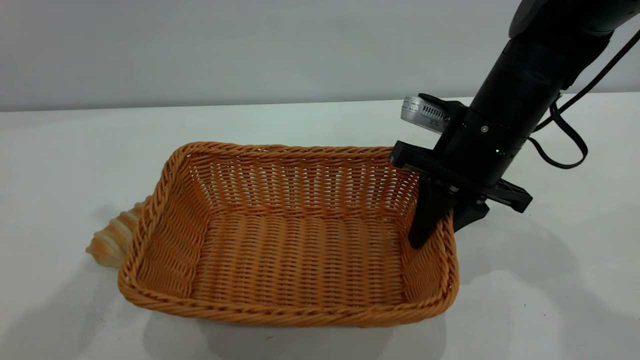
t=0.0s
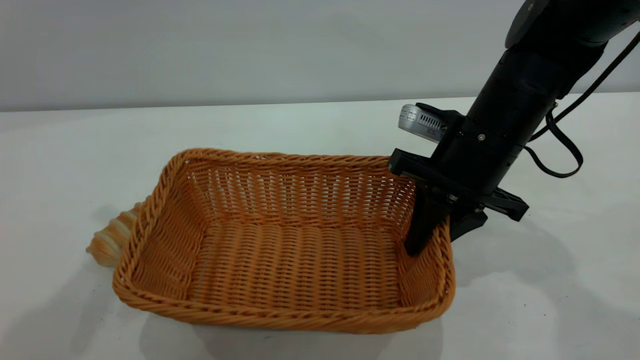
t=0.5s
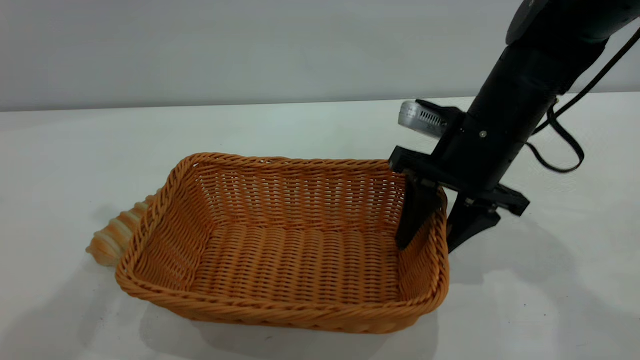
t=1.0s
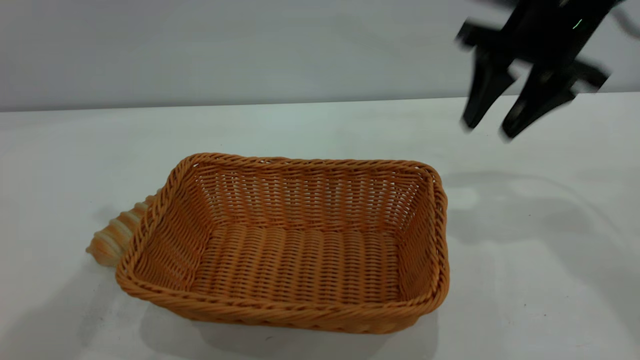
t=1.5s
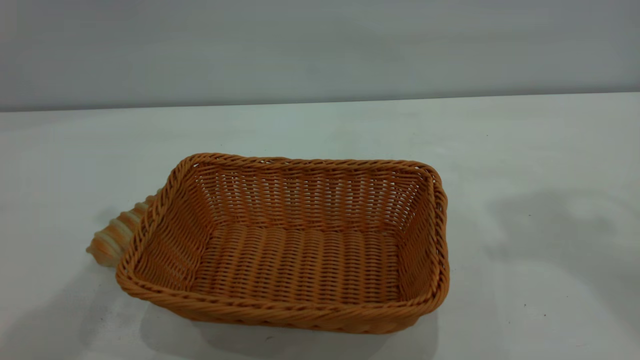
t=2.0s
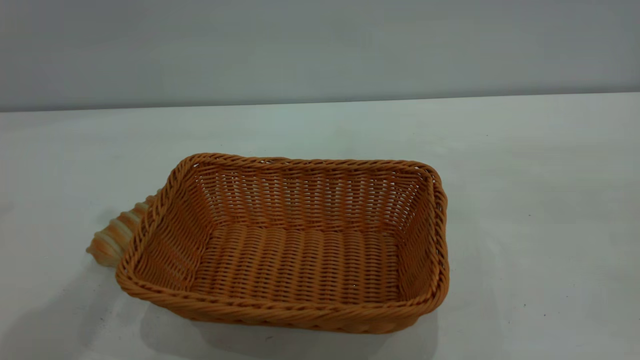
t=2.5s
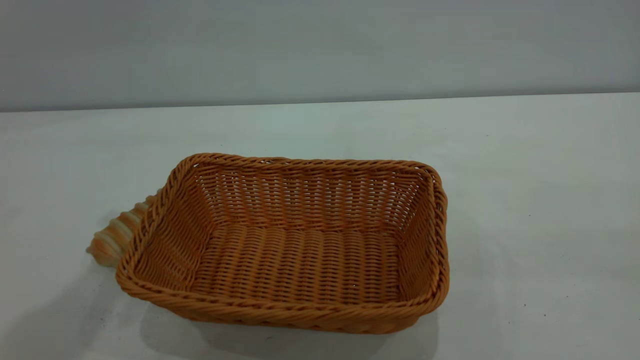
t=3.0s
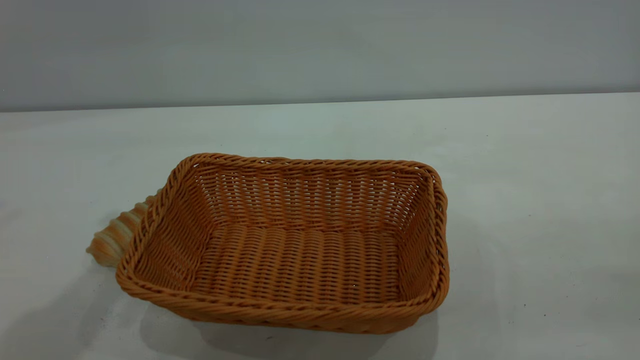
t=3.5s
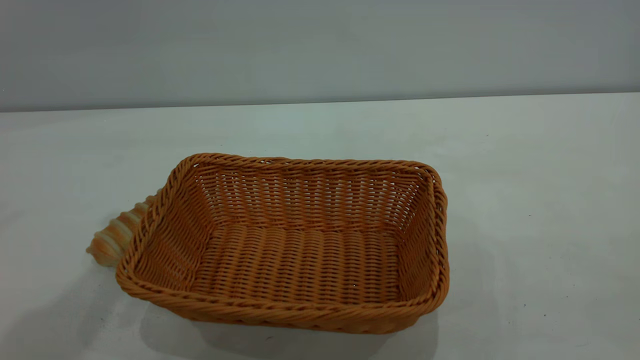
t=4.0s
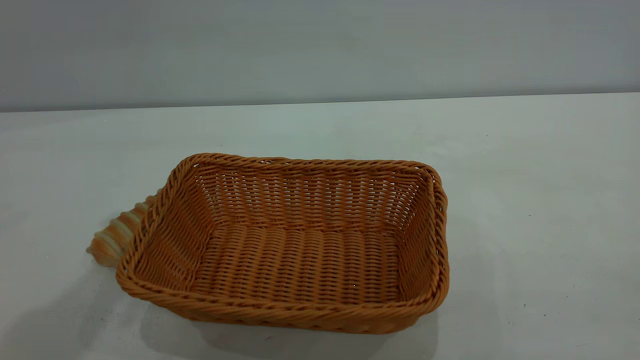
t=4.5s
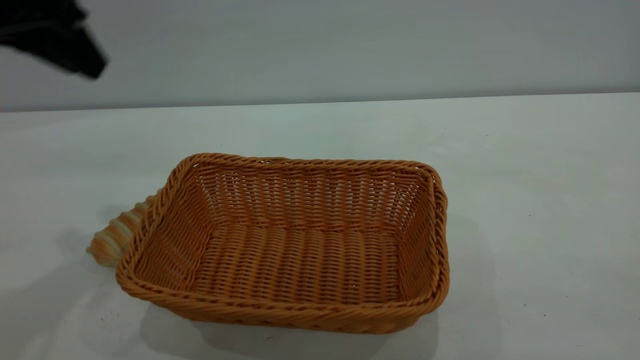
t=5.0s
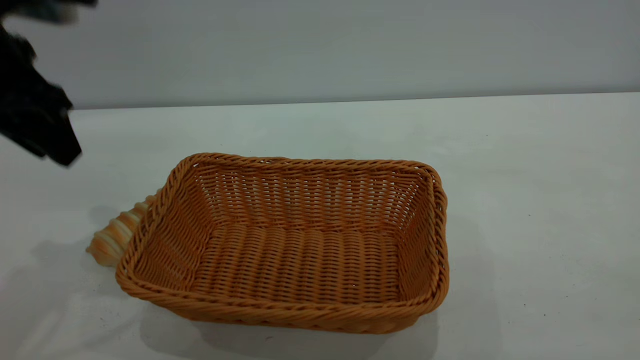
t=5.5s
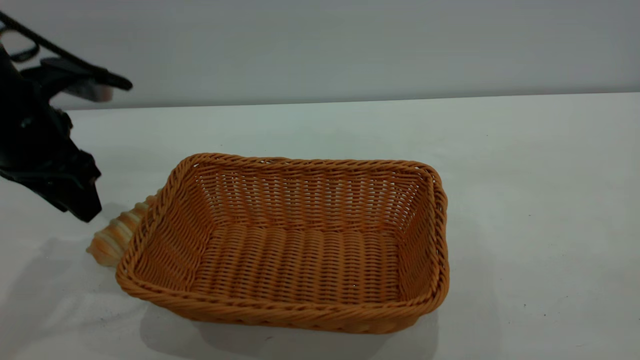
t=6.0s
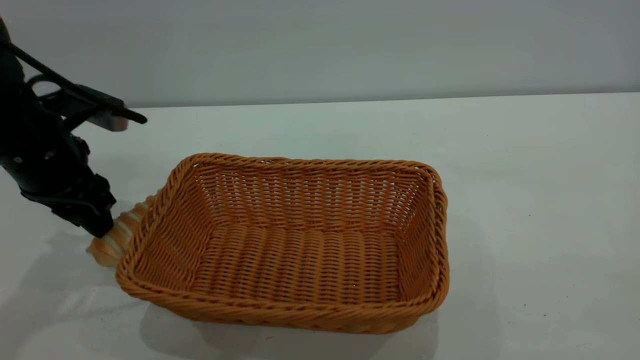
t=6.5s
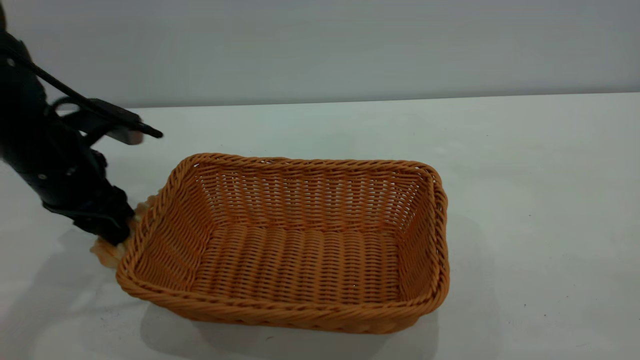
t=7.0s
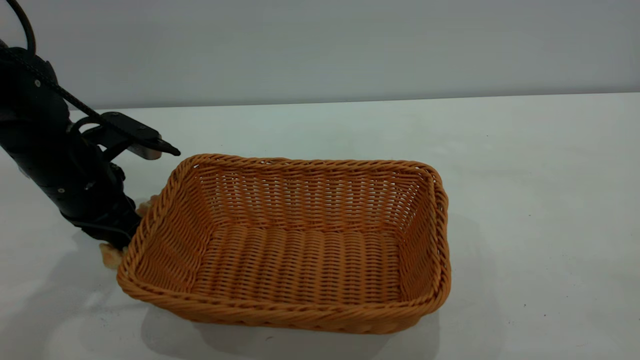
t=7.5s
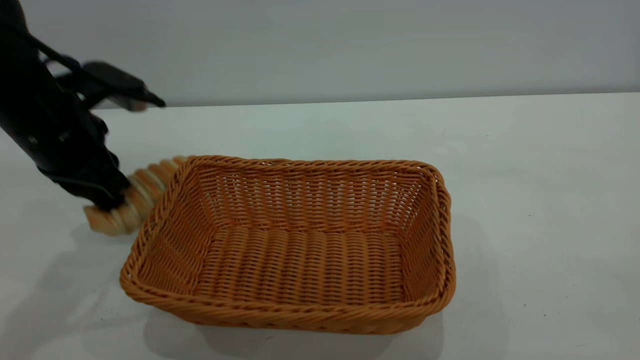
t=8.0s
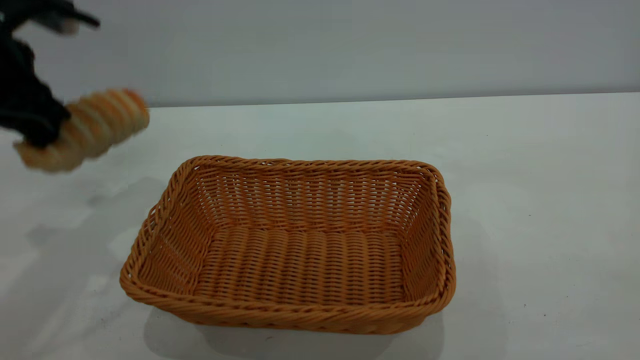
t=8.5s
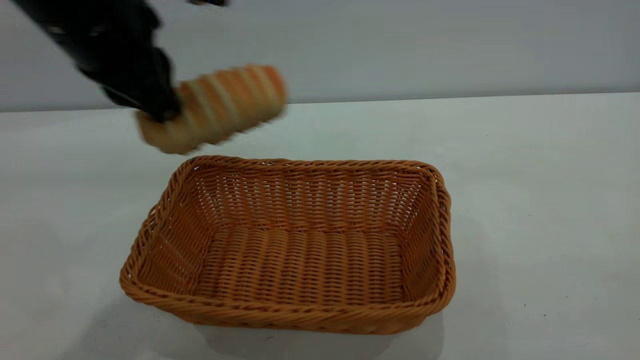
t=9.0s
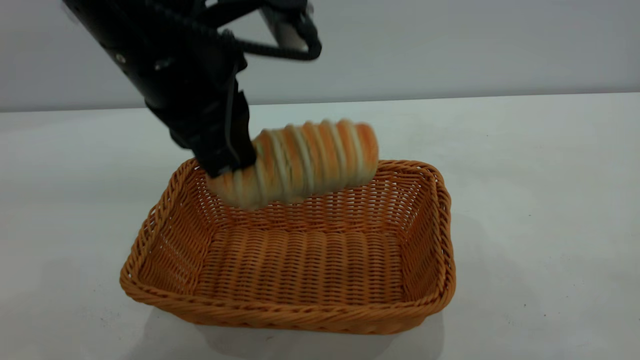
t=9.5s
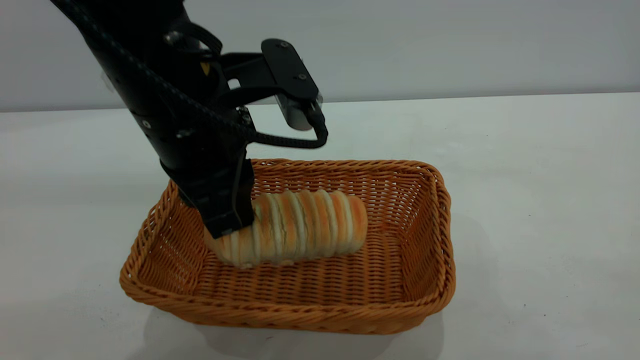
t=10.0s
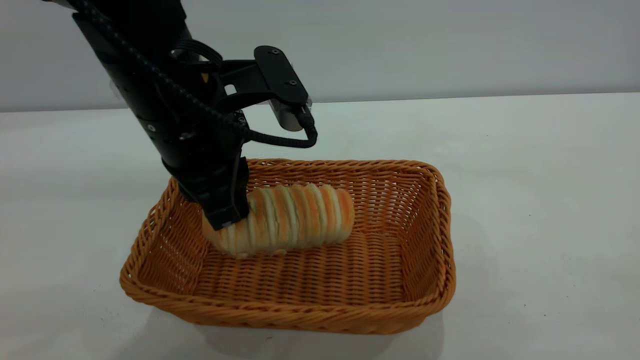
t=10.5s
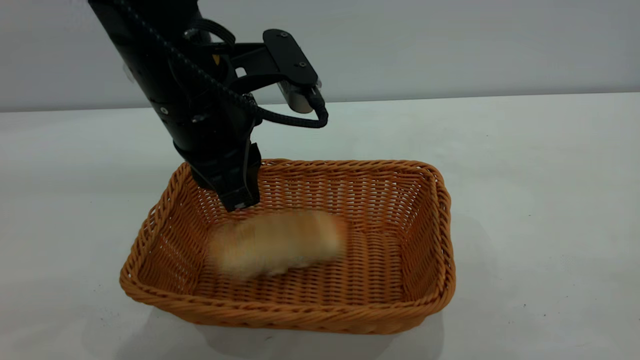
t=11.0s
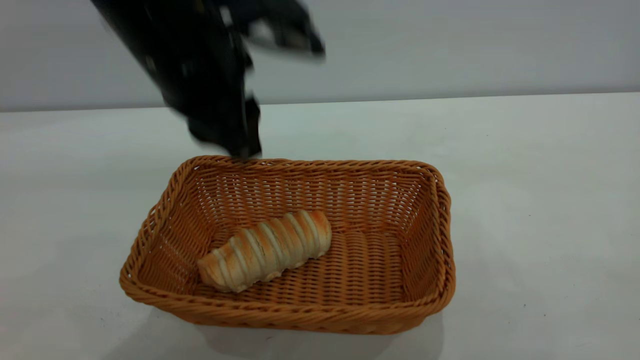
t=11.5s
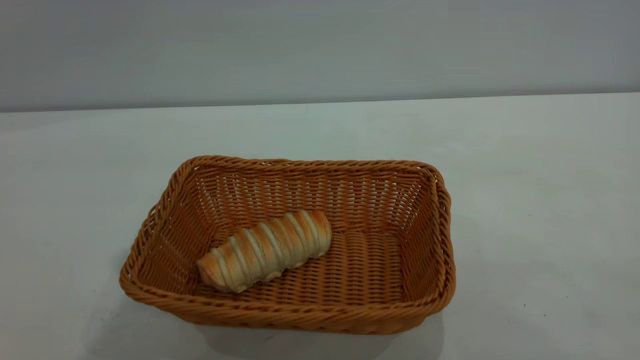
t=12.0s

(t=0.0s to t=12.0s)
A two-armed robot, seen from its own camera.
Task of the whole recording: One hand grasps the yellow basket and places it in the middle of the table, while the other hand picks up the long bread and puts it into the yellow basket.
Step, t=8.5s - t=11.5s: place the bread into the basket.
t=0.0s - t=2.0s: The right gripper shifts approximately 30 cm upward, and opens.
t=4.0s - t=6.0s: The left gripper moves downward, about 20 cm.
t=6.0s - t=8.0s: The left gripper closes its fingers.
t=8.0s - t=10.0s: The left gripper is displaced to the right and backward by about 20 cm.
t=10.0s - t=12.0s: The left gripper heads upward, covering approximately 20 cm, and opens.

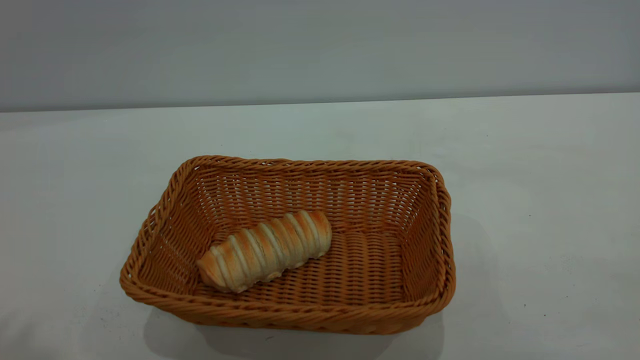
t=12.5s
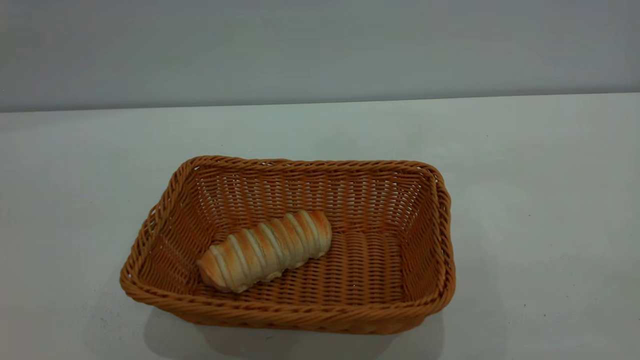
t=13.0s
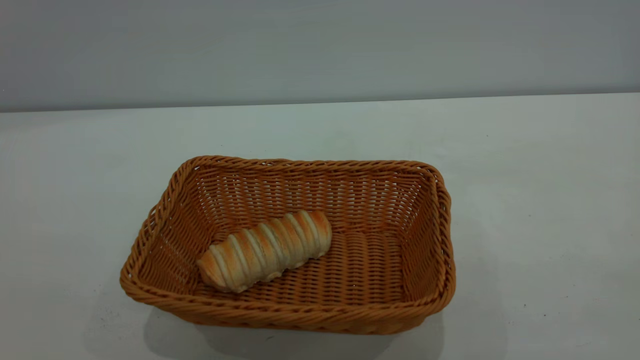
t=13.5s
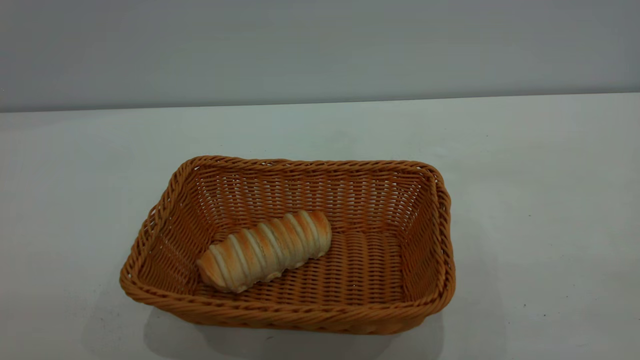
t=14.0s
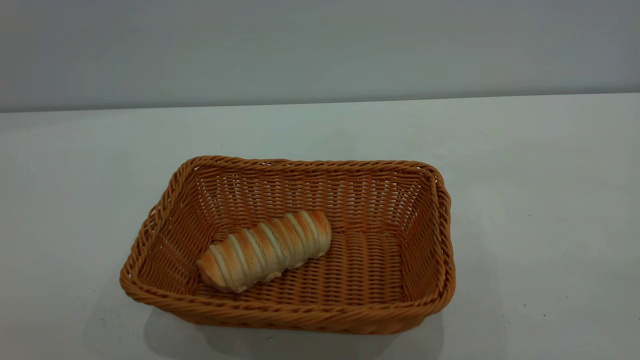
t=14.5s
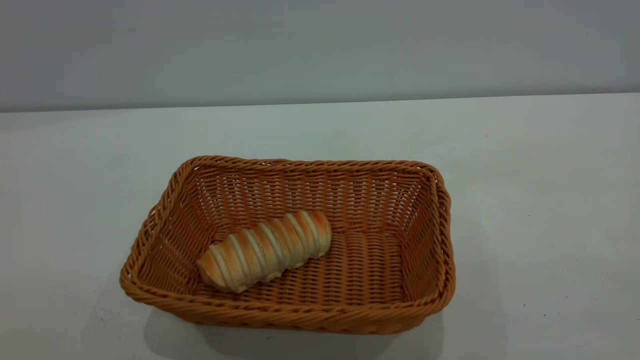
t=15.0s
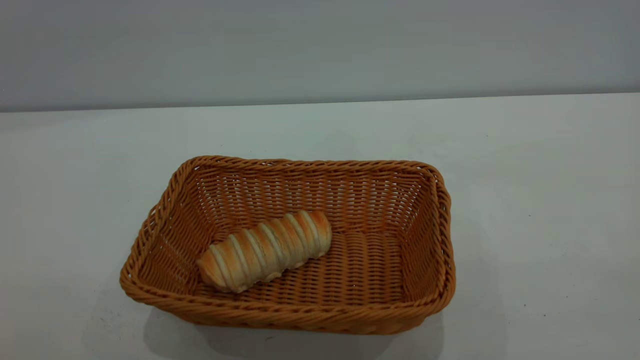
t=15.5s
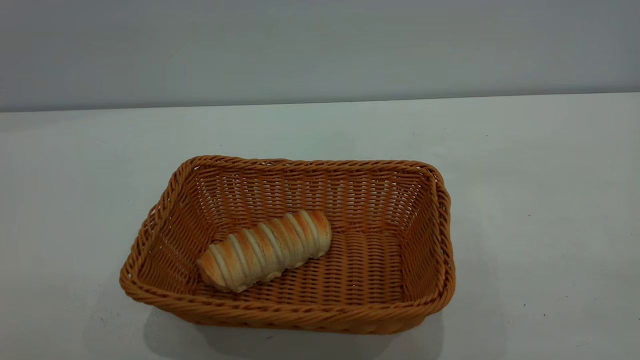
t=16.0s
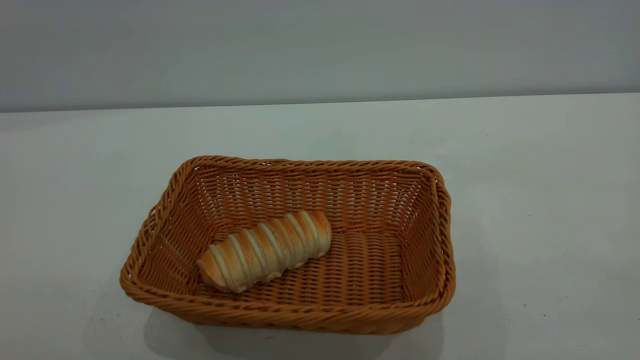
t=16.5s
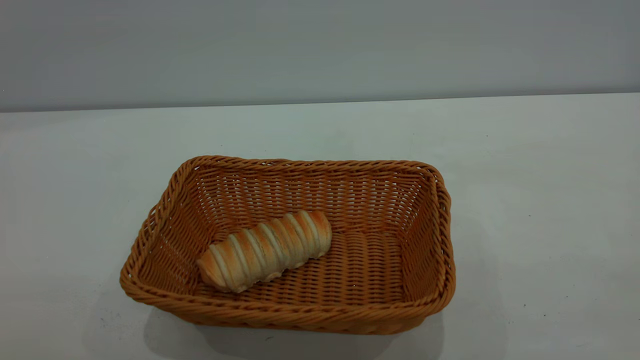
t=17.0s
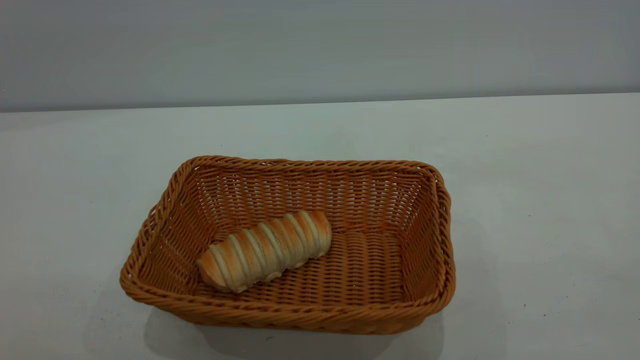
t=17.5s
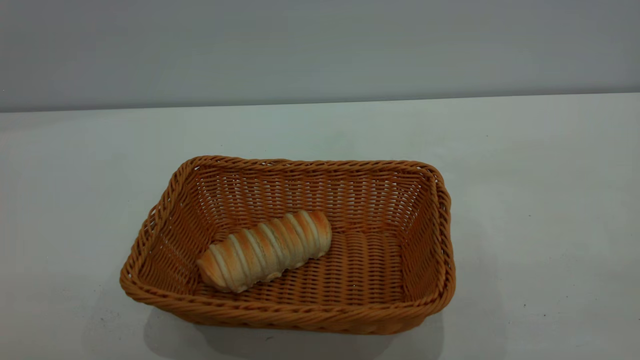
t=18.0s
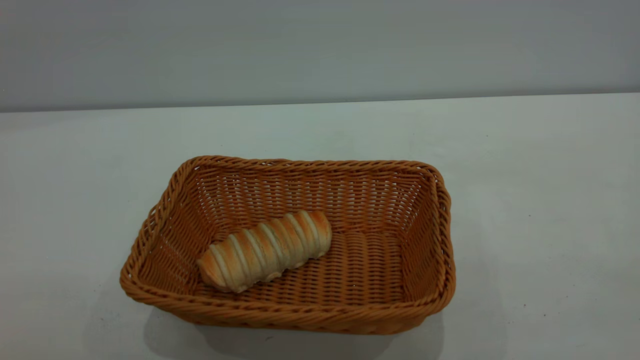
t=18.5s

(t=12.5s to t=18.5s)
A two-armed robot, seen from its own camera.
Task of the whole recording: One hand grasps the yellow basket and places it in the middle of the table, while the other hand picks up the long bread and puts it into the yellow basket.
t=16.5s - t=18.5s: Both grippers stay about where they are.

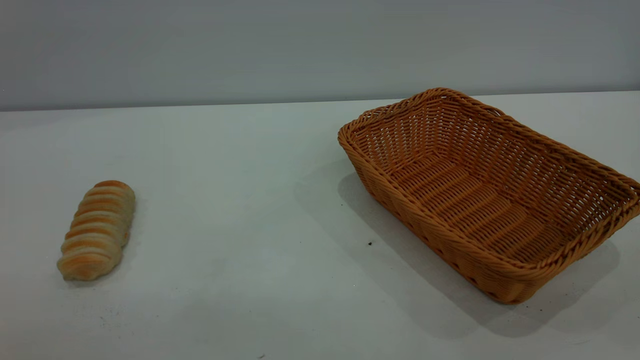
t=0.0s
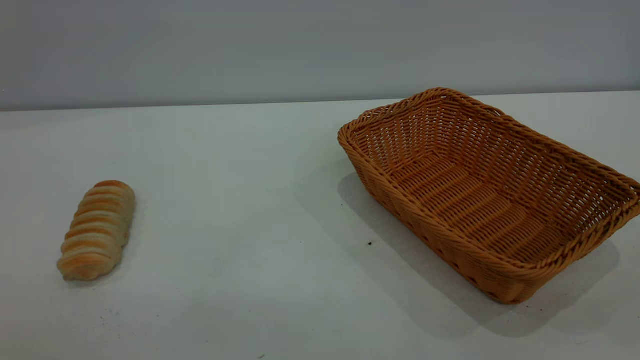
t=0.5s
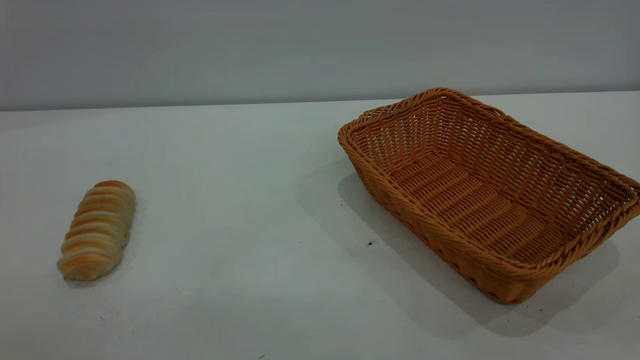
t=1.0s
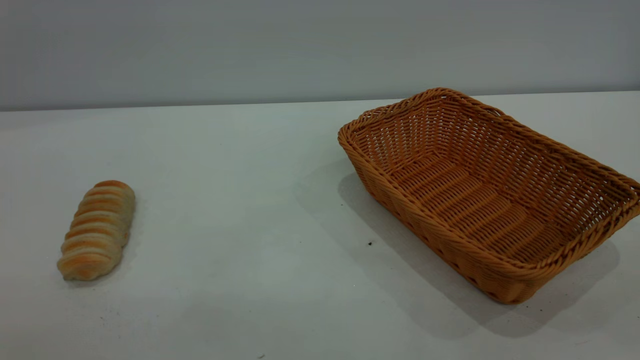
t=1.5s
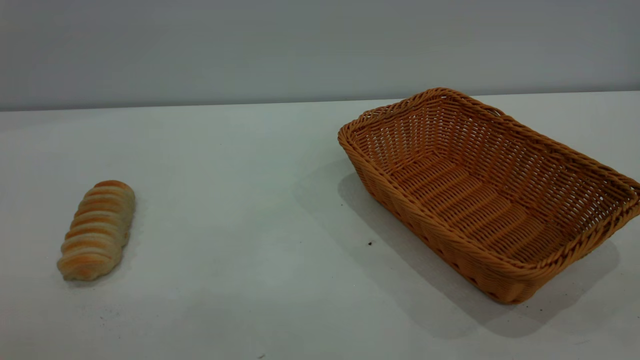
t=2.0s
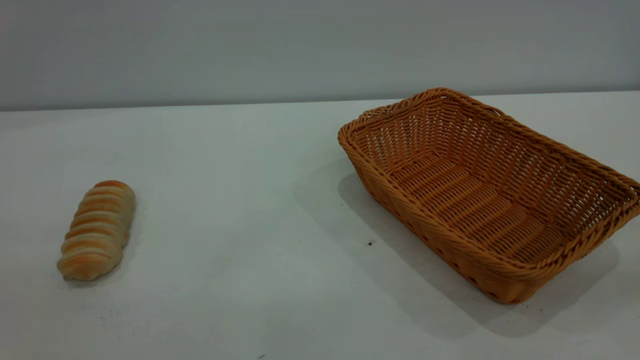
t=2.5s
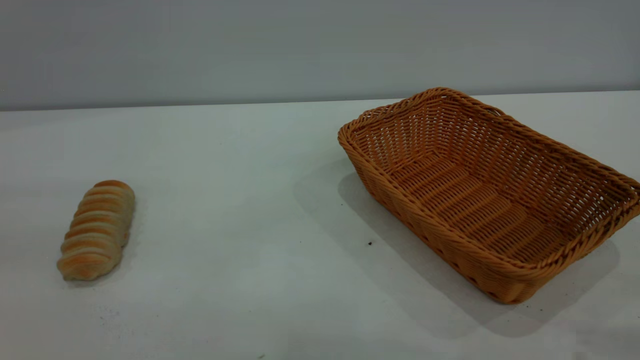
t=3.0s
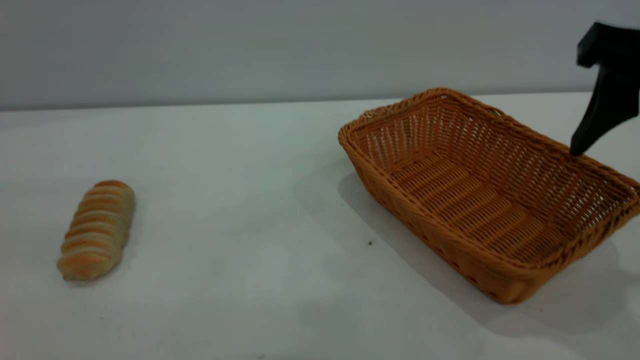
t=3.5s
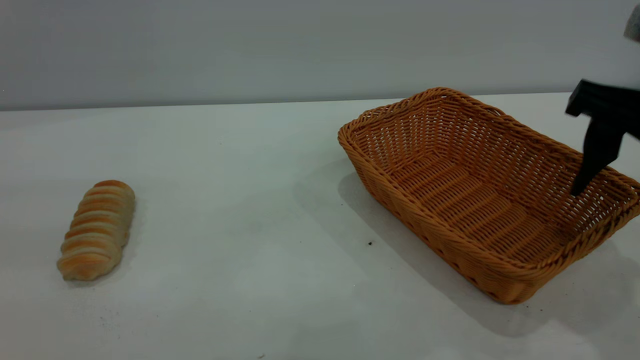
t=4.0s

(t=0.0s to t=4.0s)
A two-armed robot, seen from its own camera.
Task of the whole recording: One hand grasps the yellow basket and places it in the middle of the table, while the other hand picks up the long bread and puts it into the yellow basket.
t=2.0s - t=4.0s: The right gripper moves forward and downward, some 30 cm.
